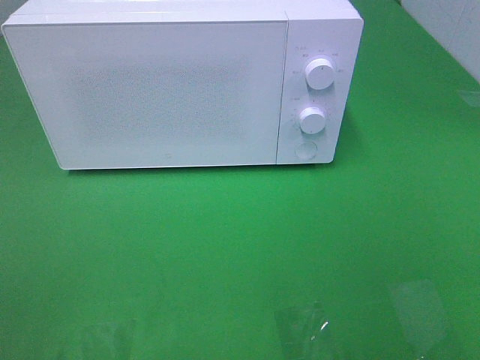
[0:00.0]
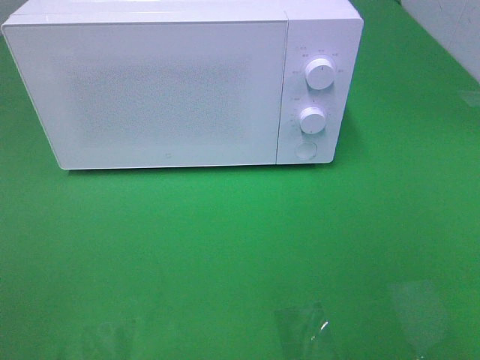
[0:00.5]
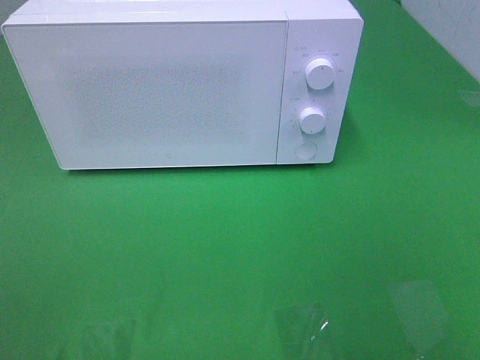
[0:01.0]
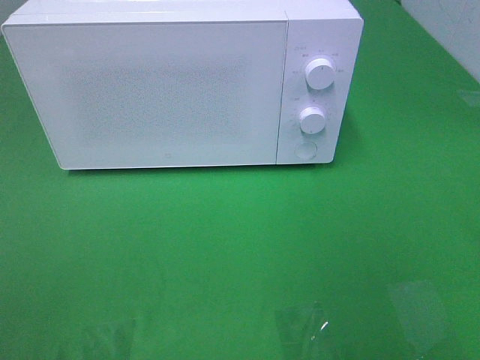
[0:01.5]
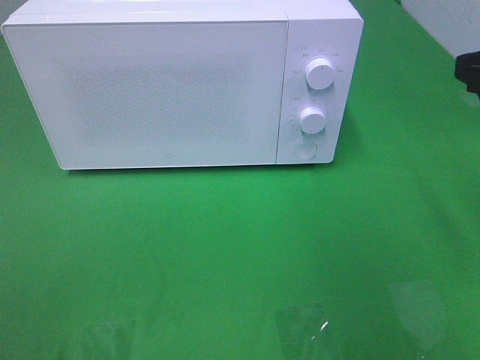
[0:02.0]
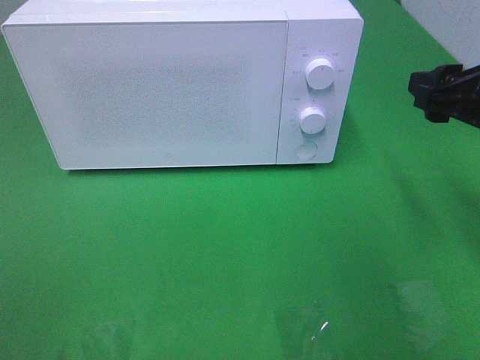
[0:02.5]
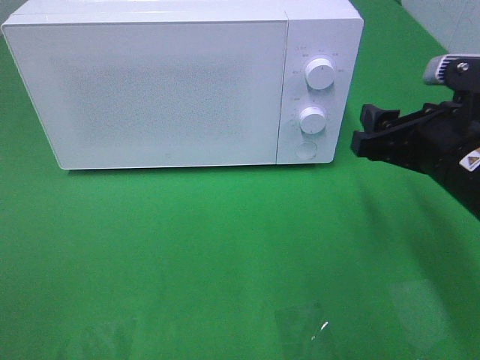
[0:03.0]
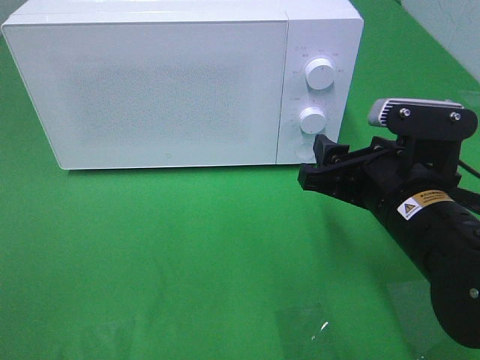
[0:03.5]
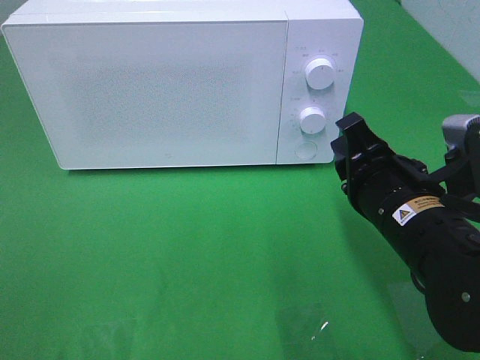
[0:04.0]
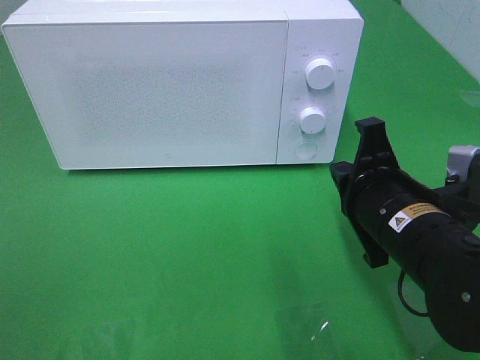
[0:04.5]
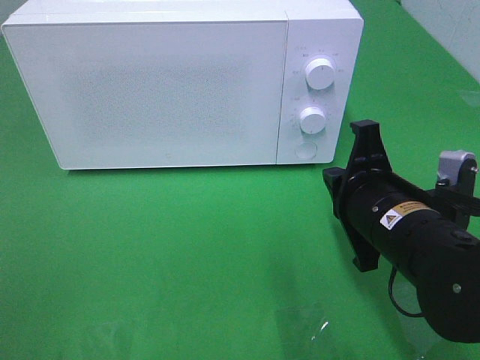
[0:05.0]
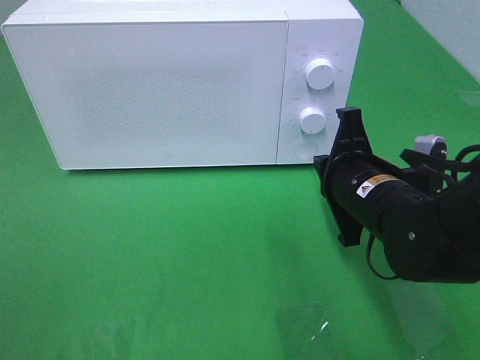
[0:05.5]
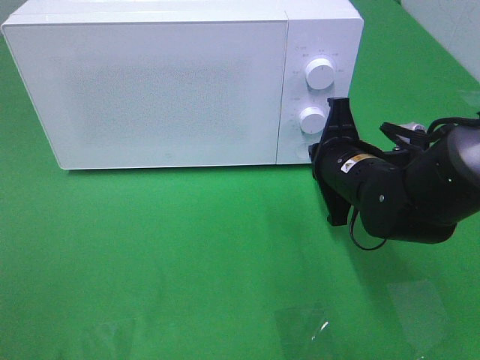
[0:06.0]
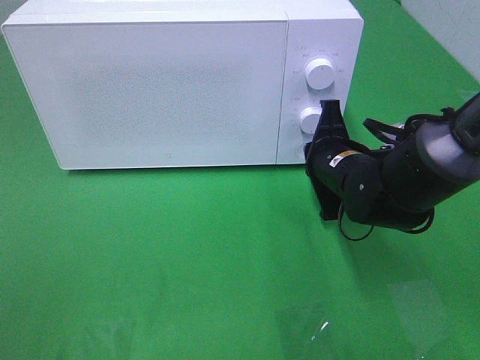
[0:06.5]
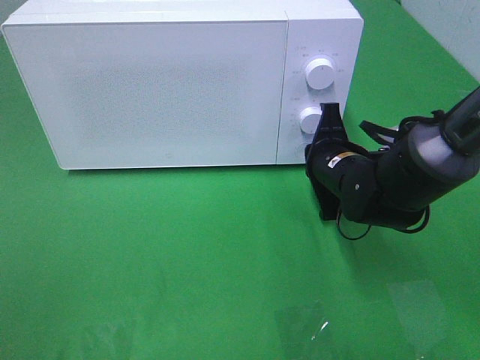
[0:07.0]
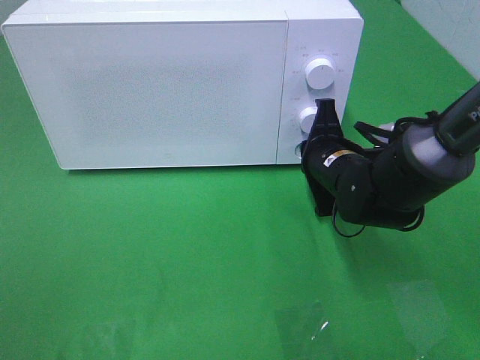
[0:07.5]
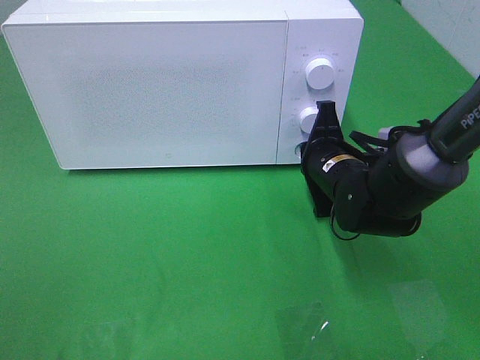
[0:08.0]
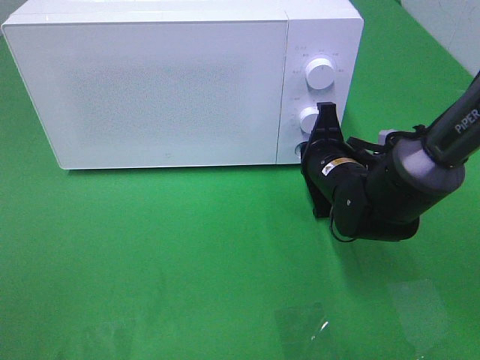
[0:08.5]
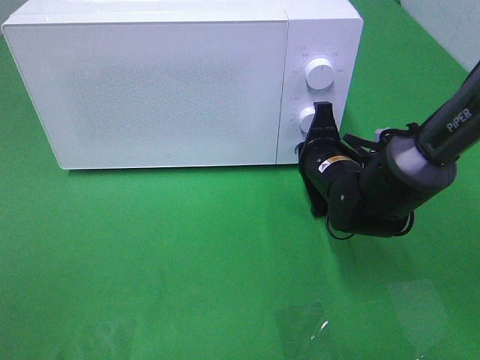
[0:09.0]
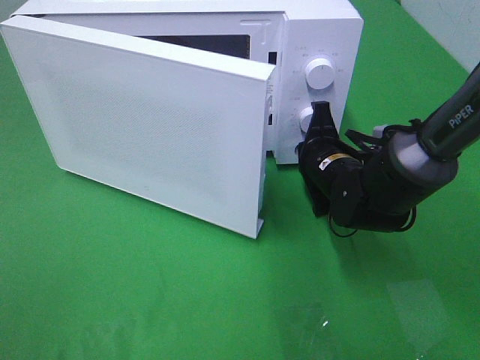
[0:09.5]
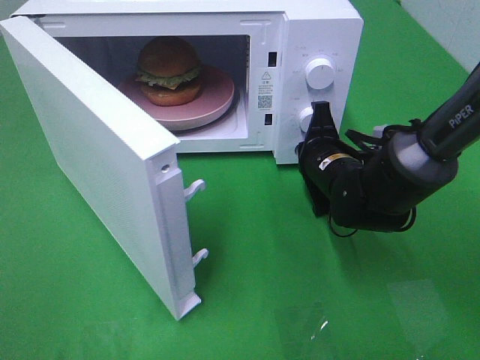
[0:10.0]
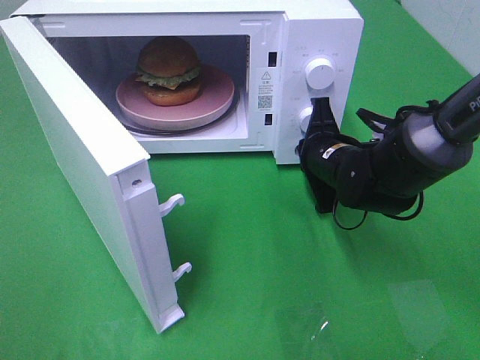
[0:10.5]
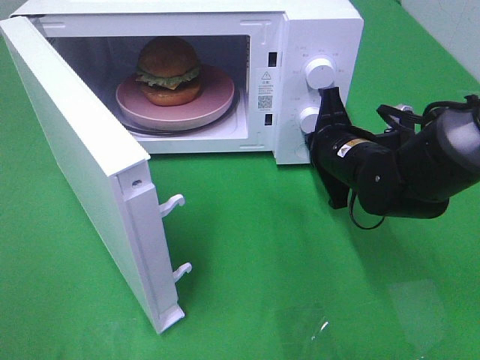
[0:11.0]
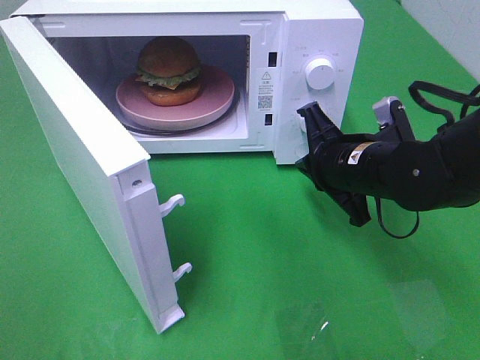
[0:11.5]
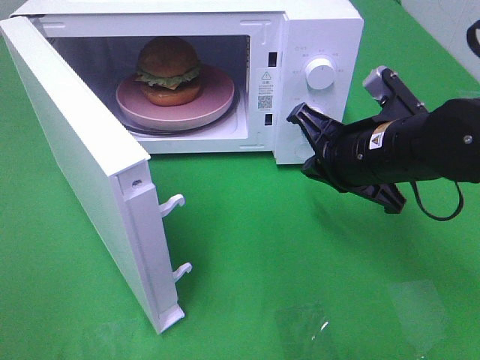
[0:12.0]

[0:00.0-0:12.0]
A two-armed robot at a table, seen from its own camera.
Task of the whole recording: Heat the burger.
Step, 0.0 to 10.5 s: Right hand: press the switch.
2.0 to 4.0 s: The right gripper goes some 20 cm downward and to the left, and closes up.
4.0 to 6.0 s: The right gripper shifts roughly 10 cm forward.
6.0 to 8.0 s: The grippers make only small movements.
10.0 to 12.0 s: The right gripper moves upward and backward, some 10 cm.

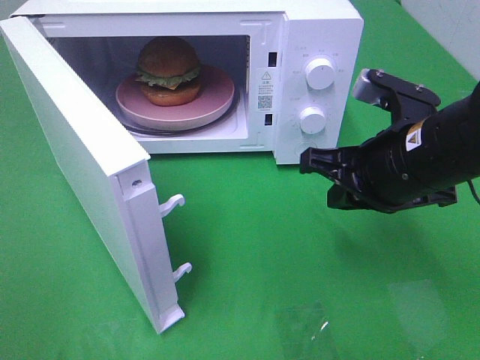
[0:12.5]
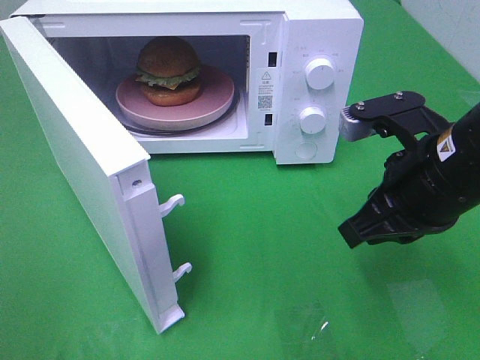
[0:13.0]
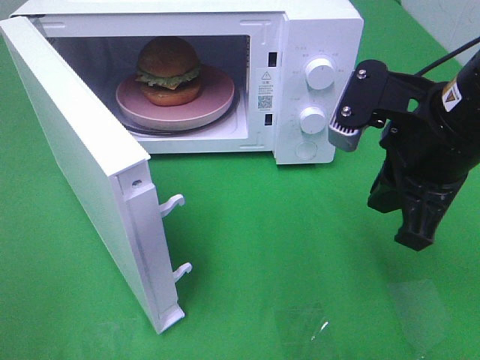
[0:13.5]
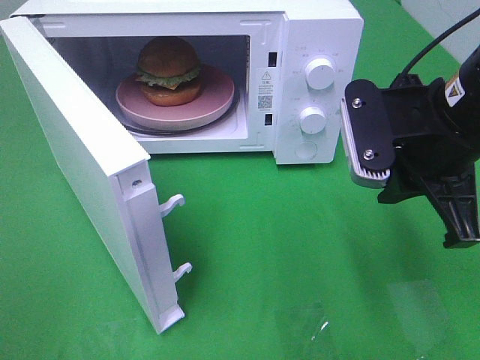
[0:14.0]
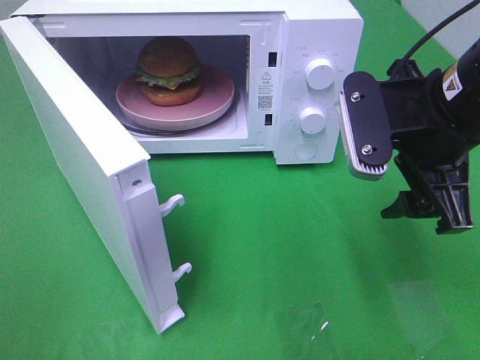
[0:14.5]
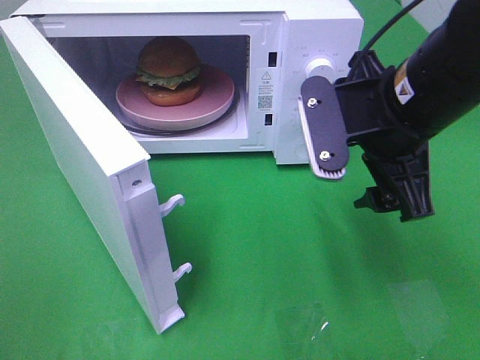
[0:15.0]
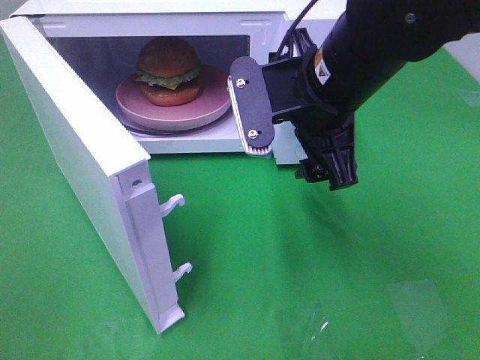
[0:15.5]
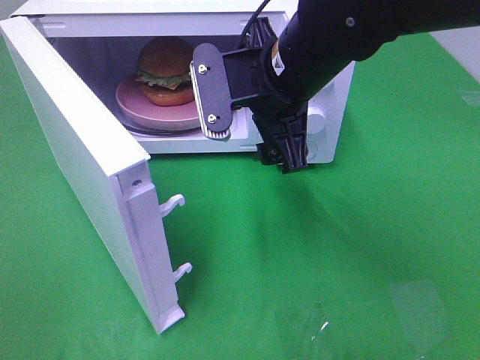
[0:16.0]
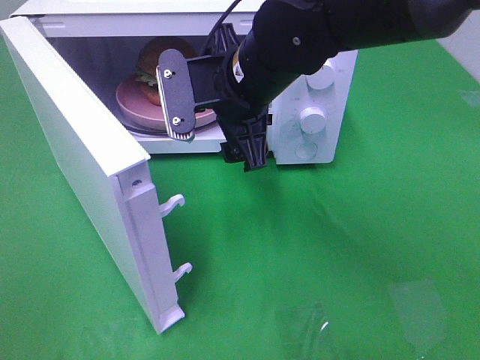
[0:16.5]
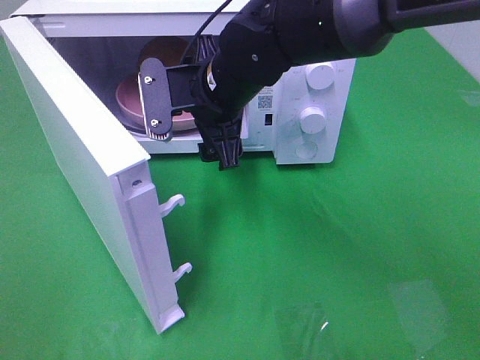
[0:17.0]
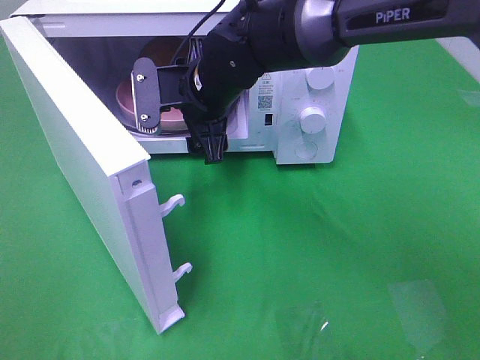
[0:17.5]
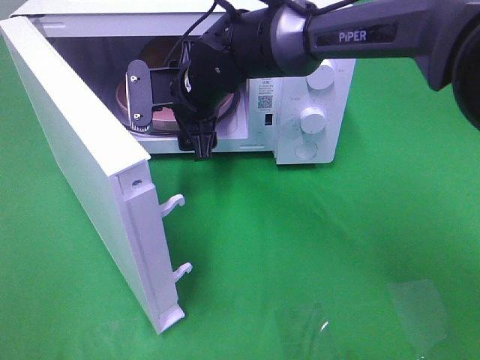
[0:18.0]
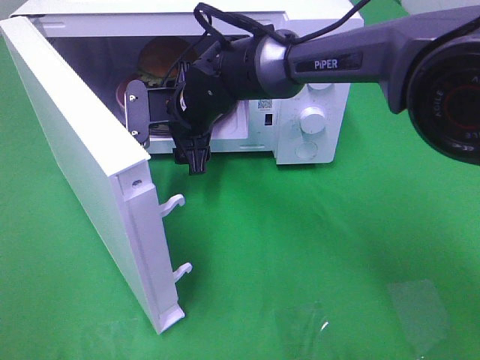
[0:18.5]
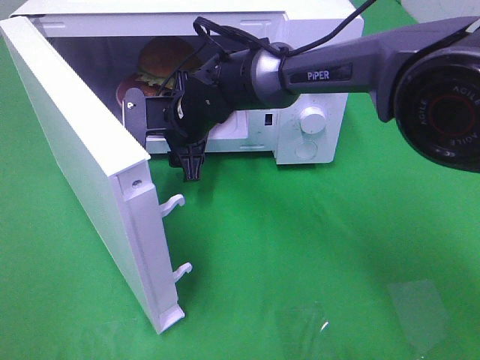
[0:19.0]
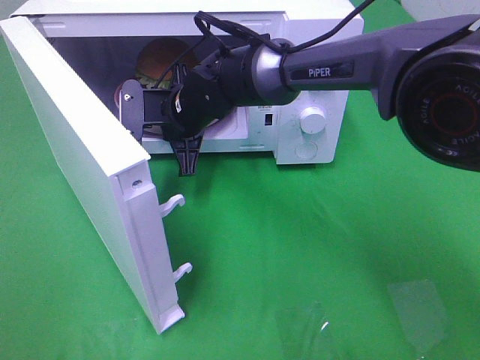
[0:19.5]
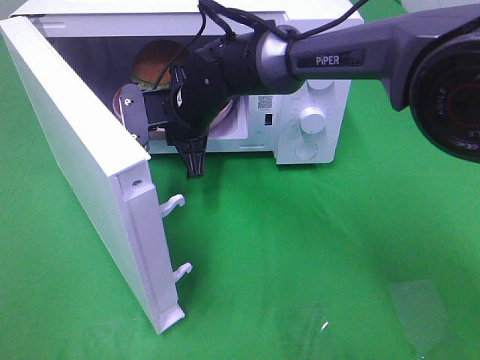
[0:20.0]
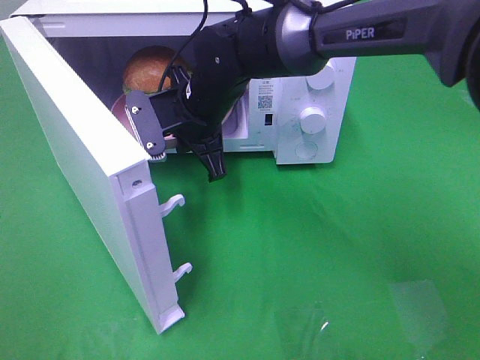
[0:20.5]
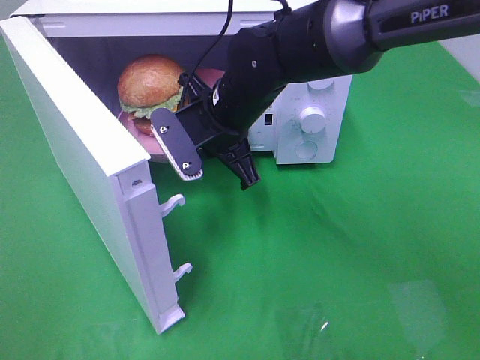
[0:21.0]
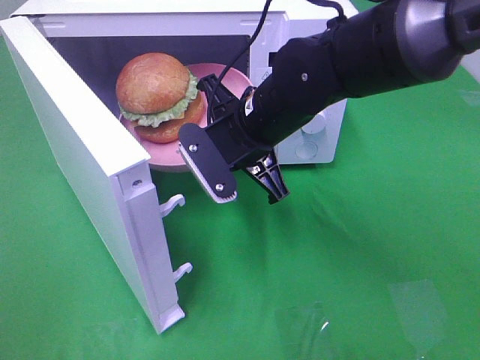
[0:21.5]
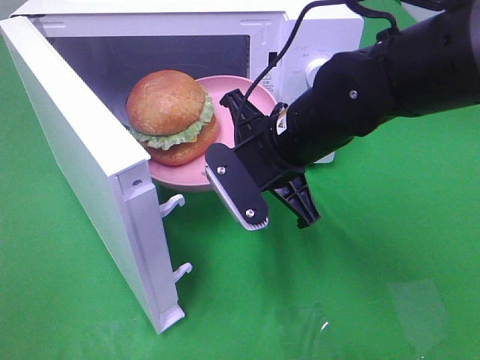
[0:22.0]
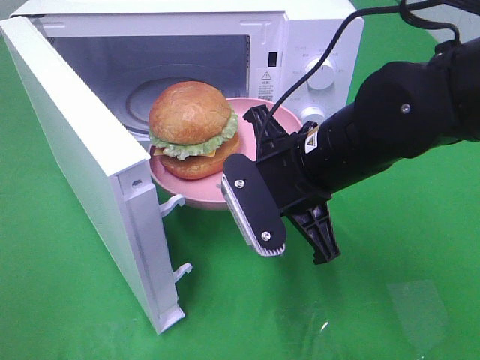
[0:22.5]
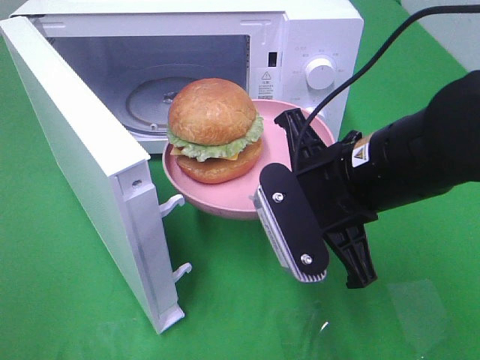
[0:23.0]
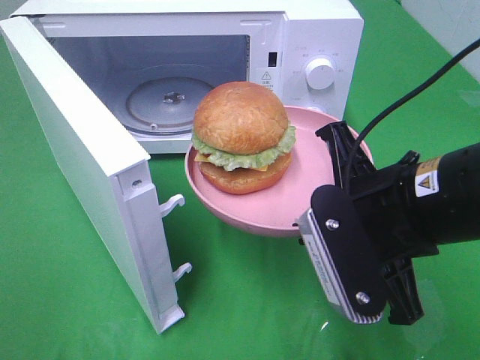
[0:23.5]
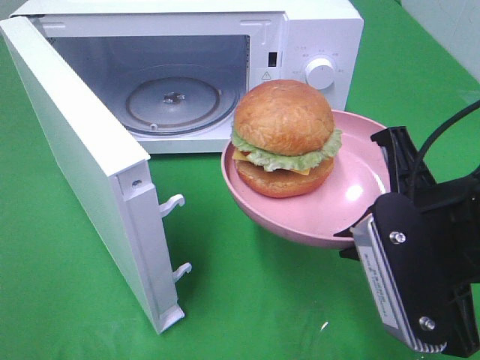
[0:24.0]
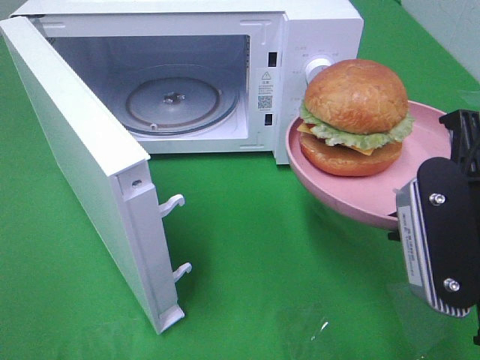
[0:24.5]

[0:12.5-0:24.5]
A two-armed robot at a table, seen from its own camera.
Task of the whole recording: Heat the burger.
Step, 12.5 to 19.5 s: Right hand: grab the plate with the hamburger.
12.5 to 14.5 s: The right gripper goes about 5 cm upward, and opens.
14.5 to 16.5 s: The right gripper shifts approximately 15 cm to the left and forward.
16.5 to 18.5 s: The right gripper heads downward, forward and to the left, covering some 15 cm.
18.5 to 20.5 s: The right gripper closes up.
20.5 to 22.5 s: The right gripper is displaced backward and to the right by about 15 cm.
22.5 to 24.5 s: The right gripper shifts some 15 cm to the right and backward.

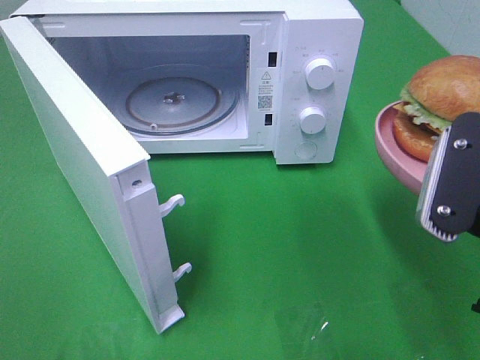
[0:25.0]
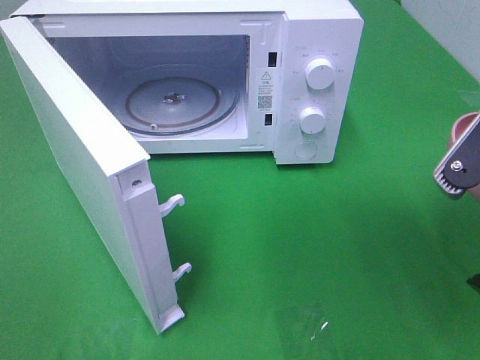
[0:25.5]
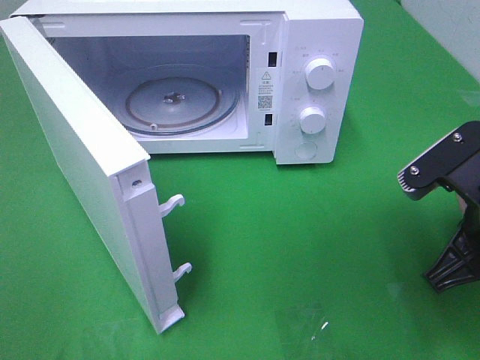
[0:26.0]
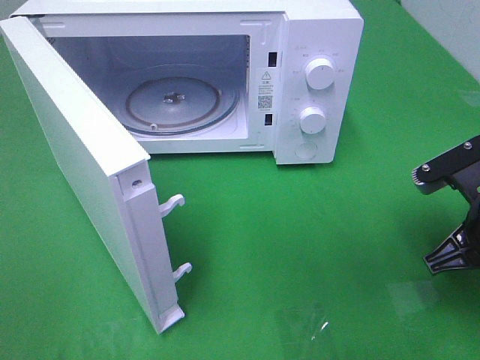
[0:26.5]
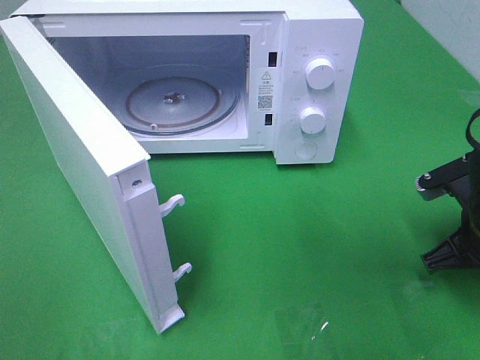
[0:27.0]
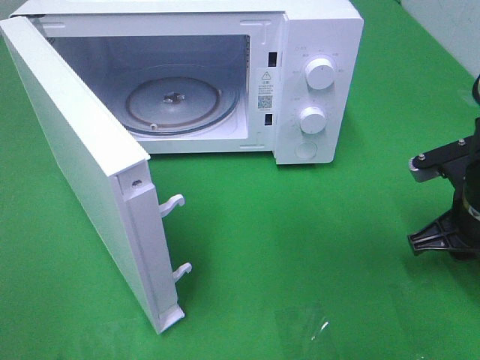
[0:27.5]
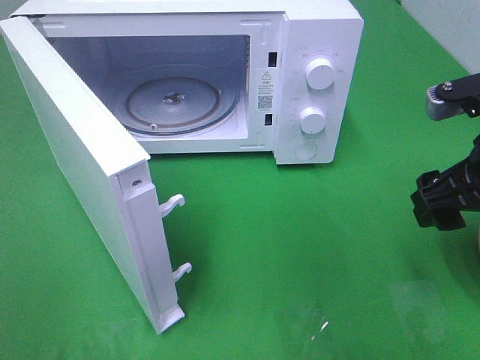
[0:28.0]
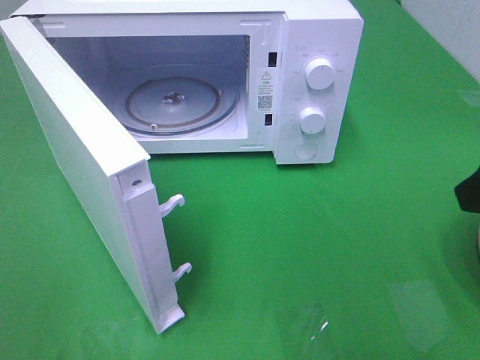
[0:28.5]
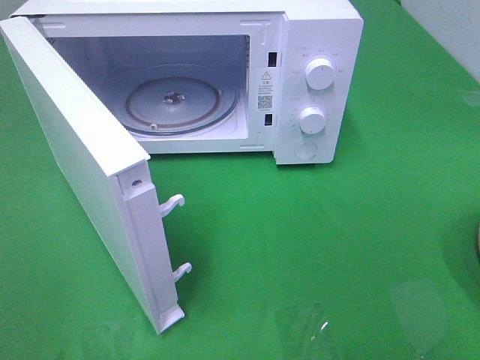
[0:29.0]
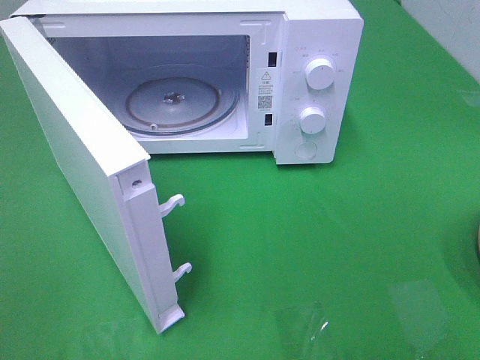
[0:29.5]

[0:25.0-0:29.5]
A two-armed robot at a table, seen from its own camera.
Task of the whole recording: Heat the burger.
Step, 25.0 to 27.0 s: Right hand: place the plate on the table.
25.0 to 27.0 s: The right gripper shifts some 15 cm downward and forward.
27.0 to 29.5 s: The right gripper heads backward and upward, covering approximately 30 cm, and opens up.
